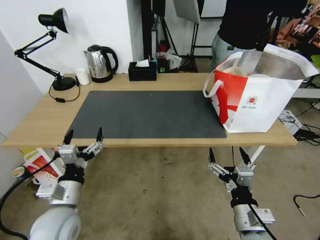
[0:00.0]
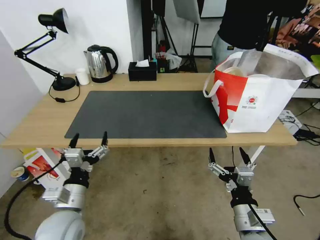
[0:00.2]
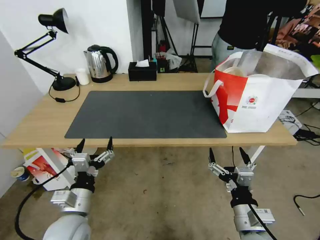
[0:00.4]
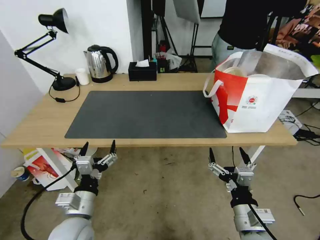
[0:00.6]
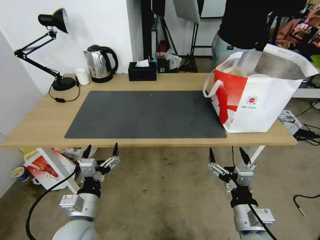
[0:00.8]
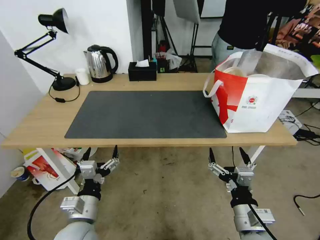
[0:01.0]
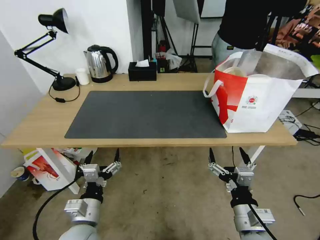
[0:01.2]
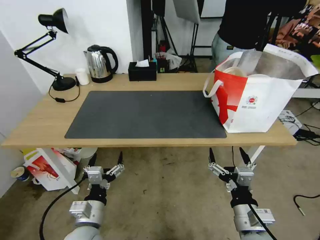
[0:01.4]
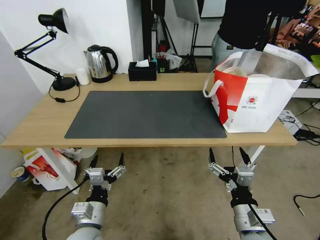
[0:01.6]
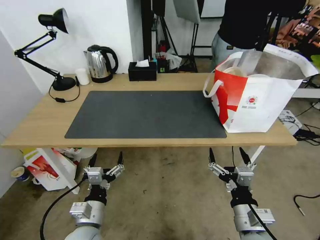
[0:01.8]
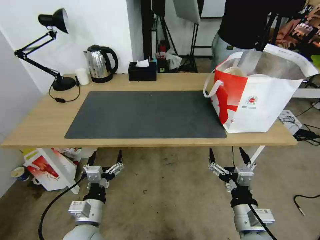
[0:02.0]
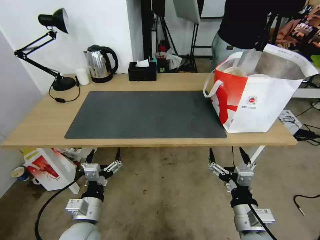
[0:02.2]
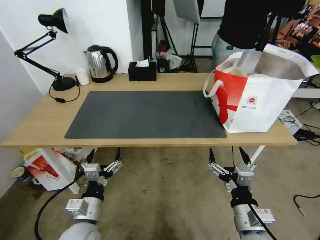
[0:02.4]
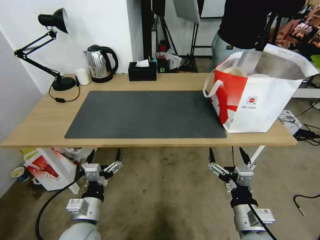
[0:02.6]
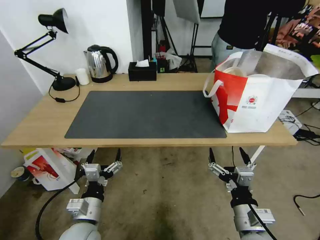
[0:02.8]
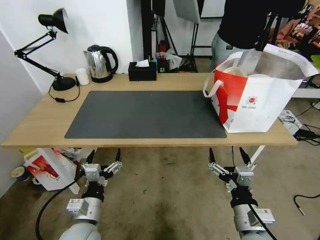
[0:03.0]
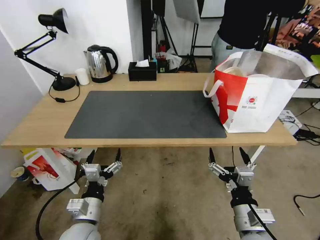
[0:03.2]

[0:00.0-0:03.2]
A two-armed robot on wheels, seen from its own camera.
Task of the whole recording: Pick up the trash from the table and place it into the takeout bag.
0:00.0 to 0:01.6: The left gripper shifts some 10 cm downward and to the right.
0:01.6 to 0:03.2: There are only small adjustments of the grippers.

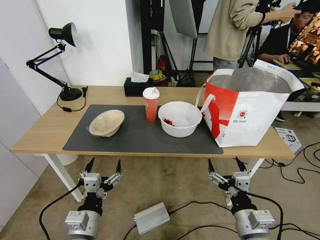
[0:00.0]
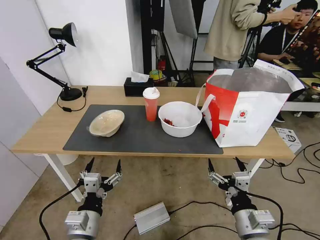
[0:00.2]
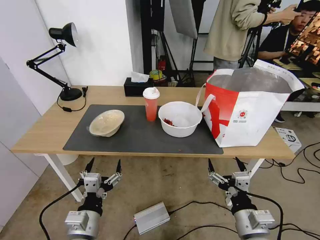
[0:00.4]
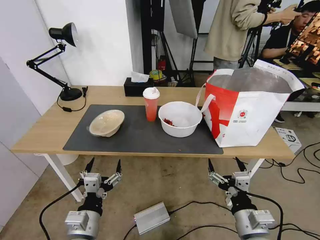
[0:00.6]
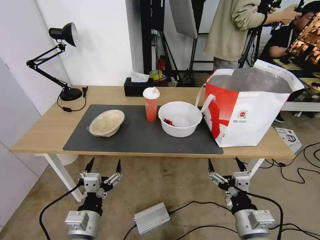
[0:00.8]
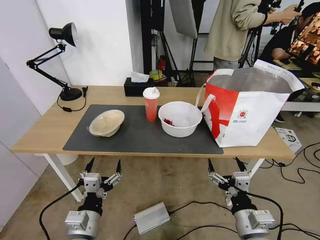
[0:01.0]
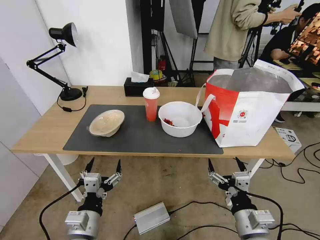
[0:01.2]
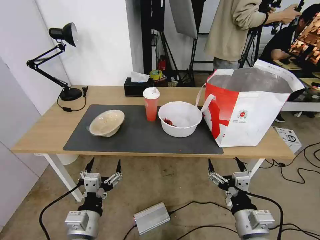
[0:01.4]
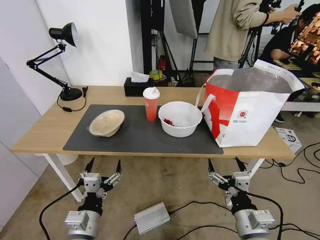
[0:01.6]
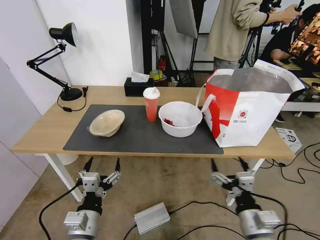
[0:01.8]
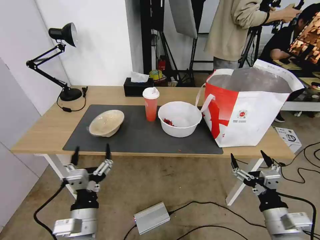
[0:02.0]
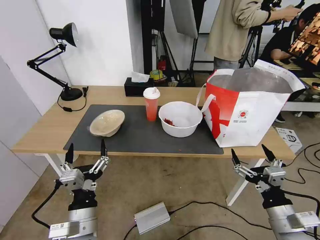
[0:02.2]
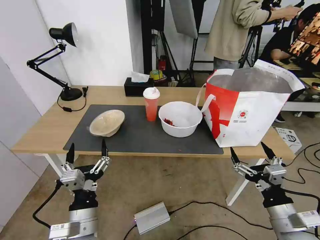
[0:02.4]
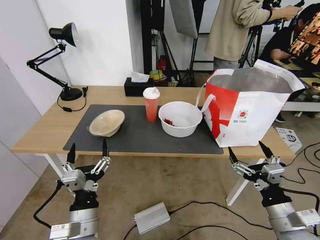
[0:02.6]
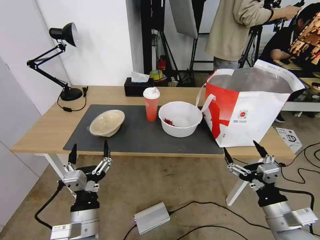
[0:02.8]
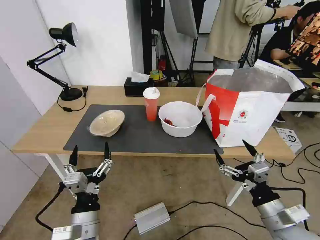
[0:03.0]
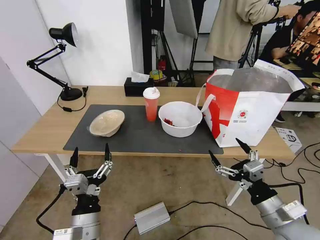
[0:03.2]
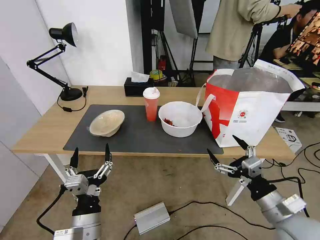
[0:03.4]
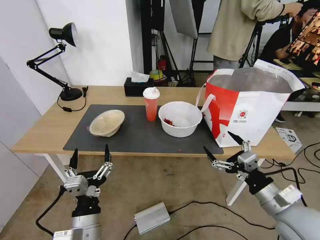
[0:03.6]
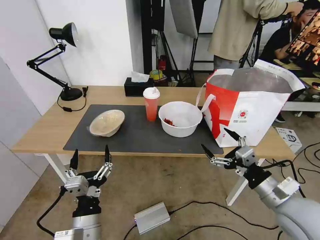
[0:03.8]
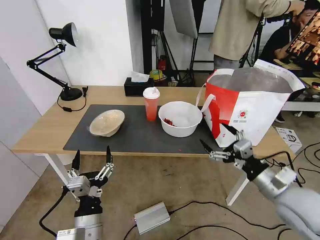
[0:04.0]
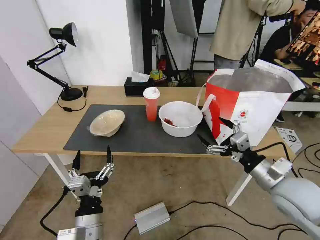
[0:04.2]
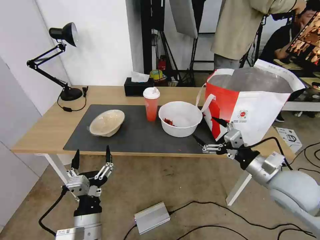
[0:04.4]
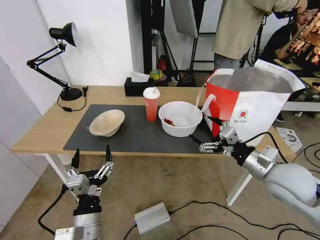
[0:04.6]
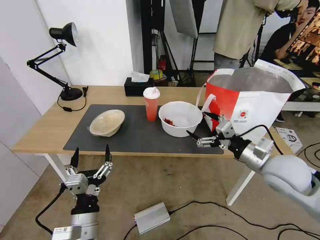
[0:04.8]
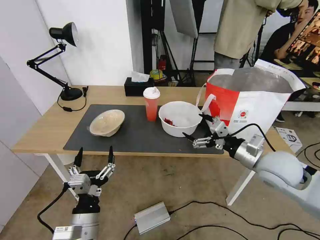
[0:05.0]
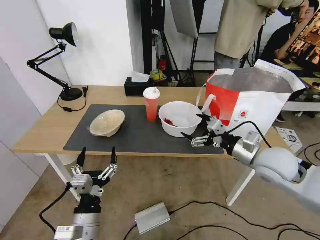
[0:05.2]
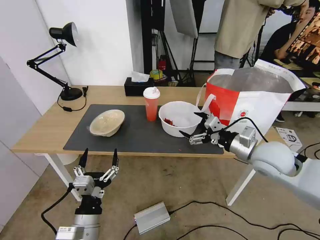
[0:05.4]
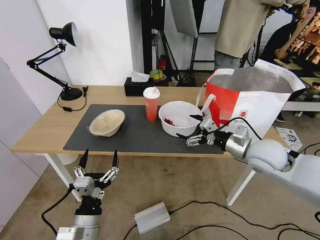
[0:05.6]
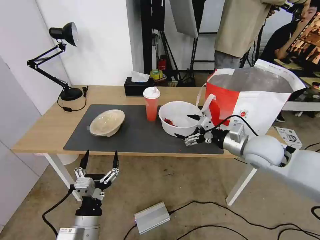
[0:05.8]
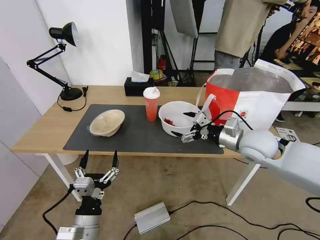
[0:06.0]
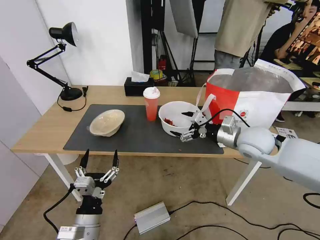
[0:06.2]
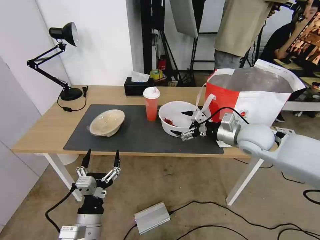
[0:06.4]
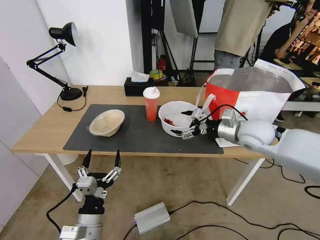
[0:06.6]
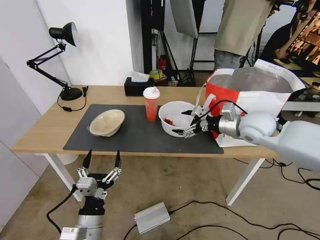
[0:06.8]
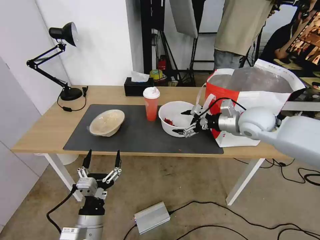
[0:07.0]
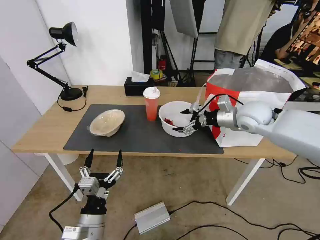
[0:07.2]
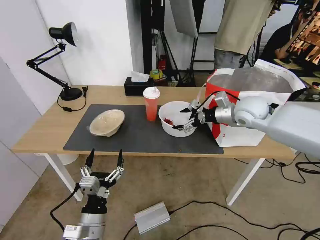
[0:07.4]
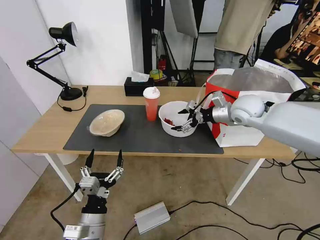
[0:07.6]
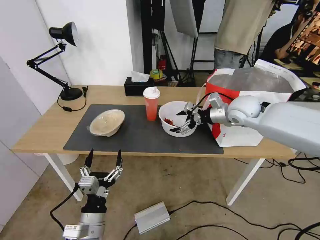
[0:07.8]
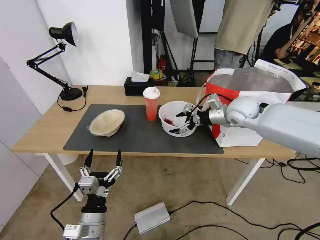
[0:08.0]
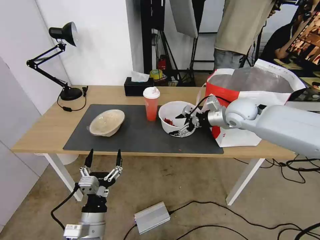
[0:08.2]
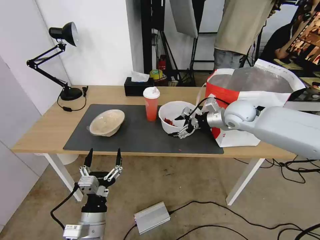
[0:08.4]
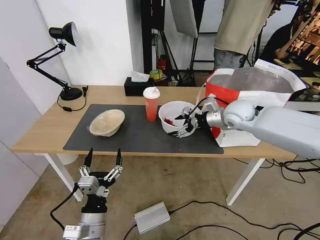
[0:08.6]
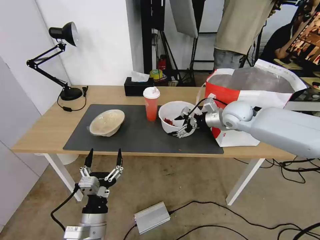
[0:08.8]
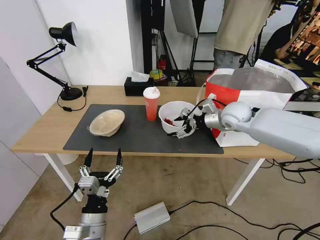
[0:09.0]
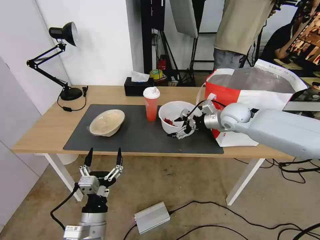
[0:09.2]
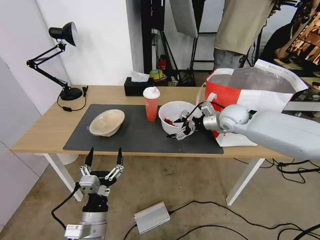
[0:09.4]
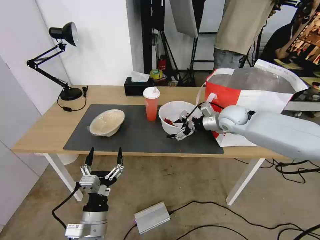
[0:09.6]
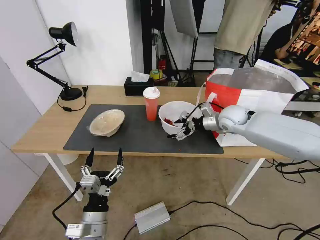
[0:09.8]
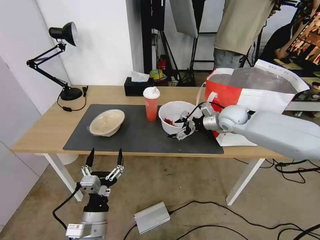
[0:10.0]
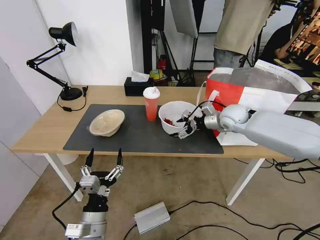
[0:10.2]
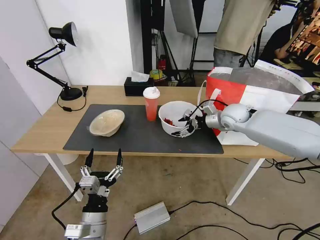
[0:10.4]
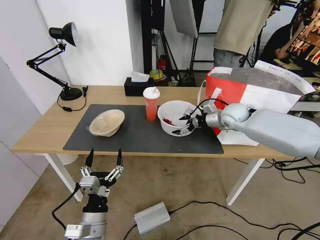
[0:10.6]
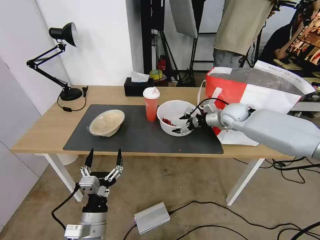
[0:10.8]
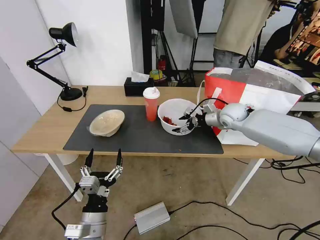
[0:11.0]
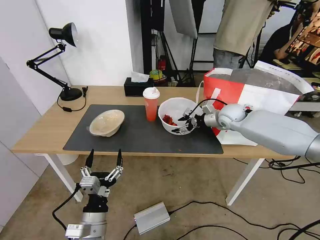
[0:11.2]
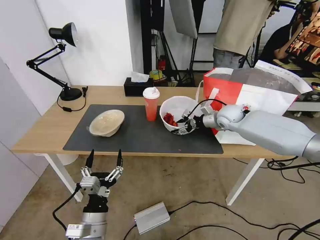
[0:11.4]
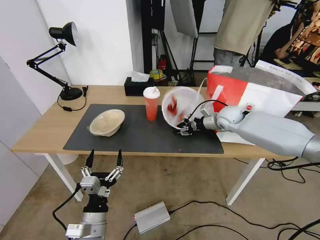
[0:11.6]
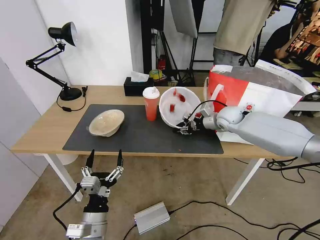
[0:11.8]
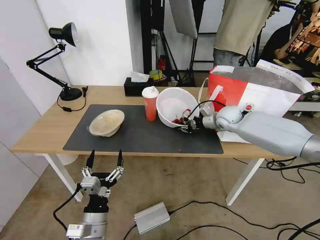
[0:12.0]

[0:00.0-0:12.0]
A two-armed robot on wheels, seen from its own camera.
Task of the whole recording: Pick up the trash from the table and place it into the takeout bag.
0:01.6 to 0:03.0: The right gripper shifts roughly 5 cm to the right.
0:03.0 to 0:04.4: The right gripper is displaced forward and upward by some 15 cm.
0:04.4 to 0:06.0: The right gripper travels forward by roughly 10 cm.
0:06.0 to 0:07.6: The right gripper travels forward by approximately 10 cm.
0:07.6 to 0:09.0: There are only small adjustments of the grippers.
0:09.0 to 0:10.4: There are only small adjustments of the grippers.
0:10.4 to 0:12.0: The right gripper closes its fingers.

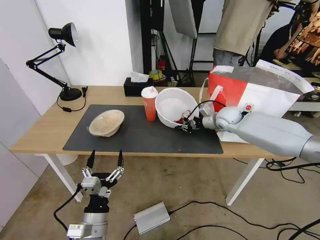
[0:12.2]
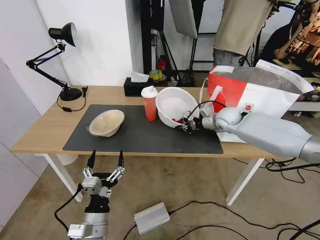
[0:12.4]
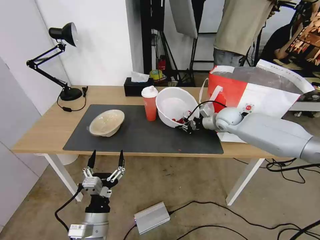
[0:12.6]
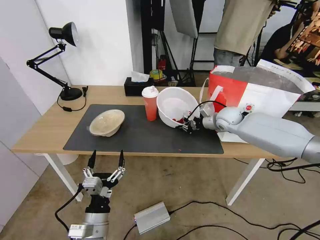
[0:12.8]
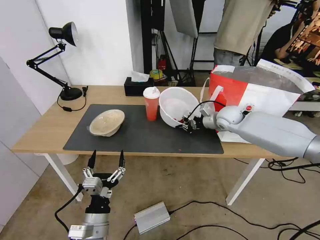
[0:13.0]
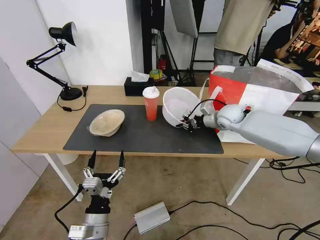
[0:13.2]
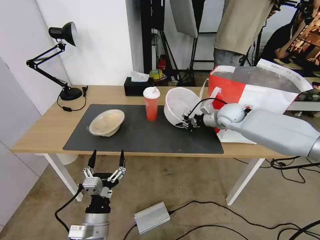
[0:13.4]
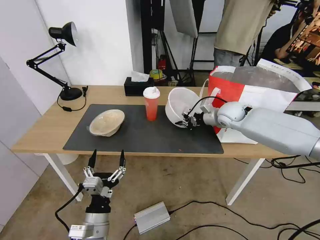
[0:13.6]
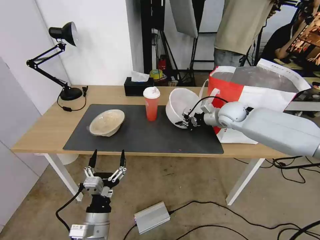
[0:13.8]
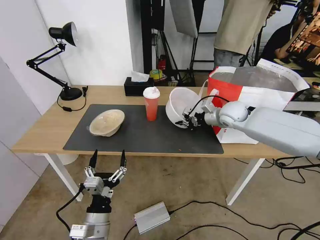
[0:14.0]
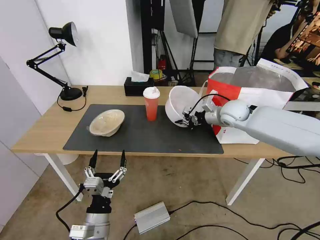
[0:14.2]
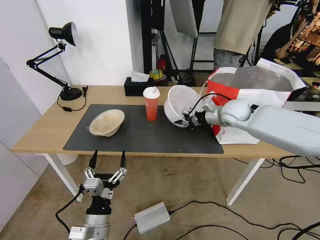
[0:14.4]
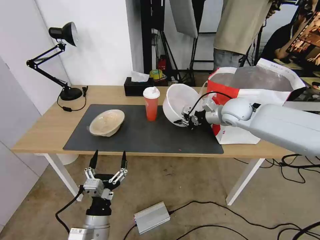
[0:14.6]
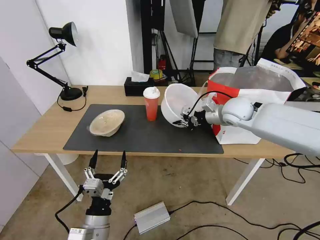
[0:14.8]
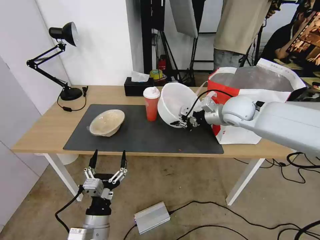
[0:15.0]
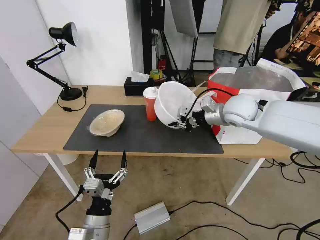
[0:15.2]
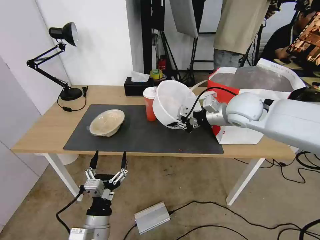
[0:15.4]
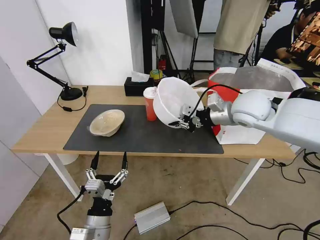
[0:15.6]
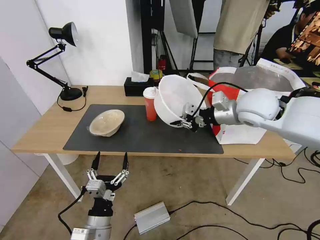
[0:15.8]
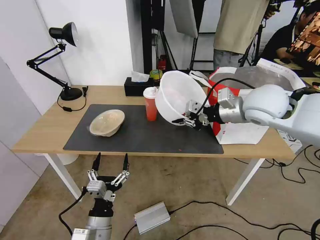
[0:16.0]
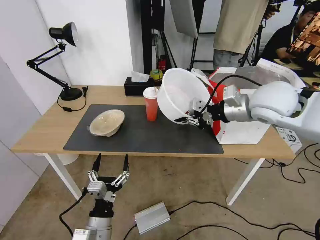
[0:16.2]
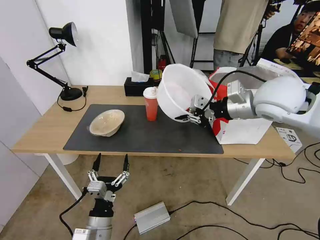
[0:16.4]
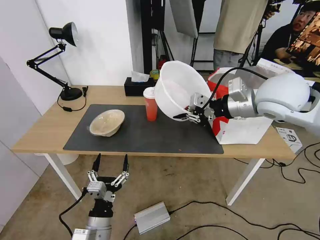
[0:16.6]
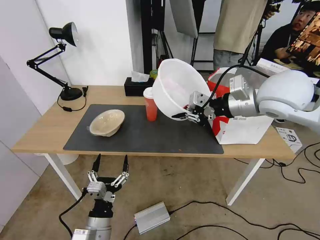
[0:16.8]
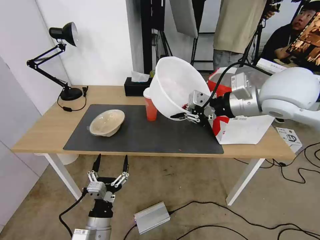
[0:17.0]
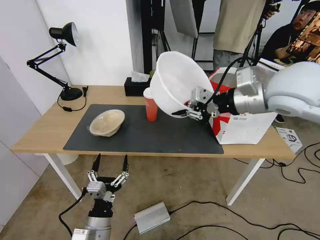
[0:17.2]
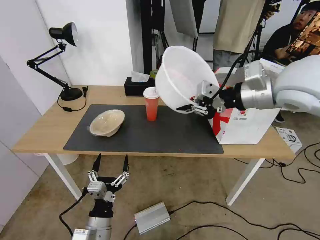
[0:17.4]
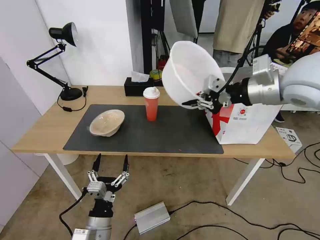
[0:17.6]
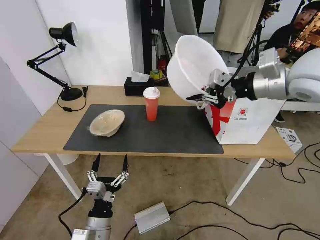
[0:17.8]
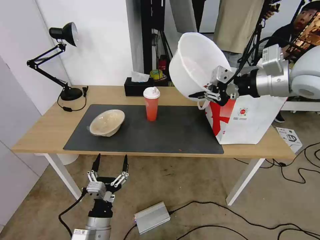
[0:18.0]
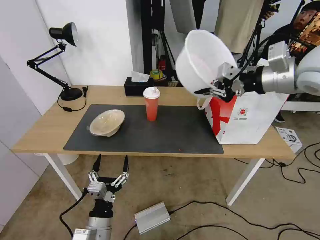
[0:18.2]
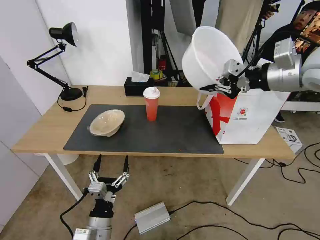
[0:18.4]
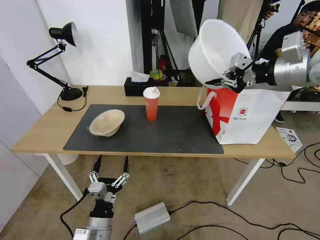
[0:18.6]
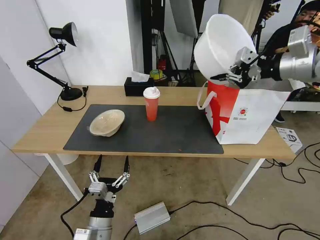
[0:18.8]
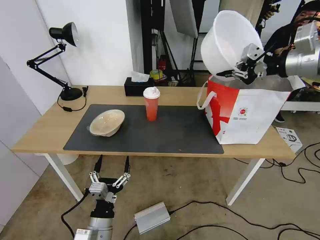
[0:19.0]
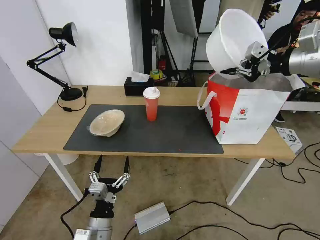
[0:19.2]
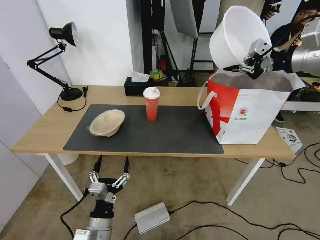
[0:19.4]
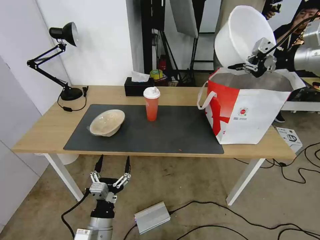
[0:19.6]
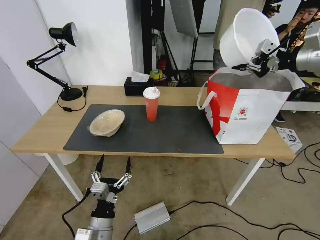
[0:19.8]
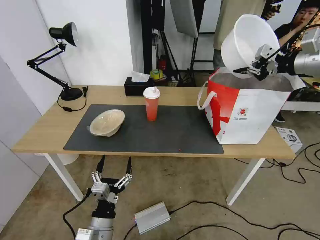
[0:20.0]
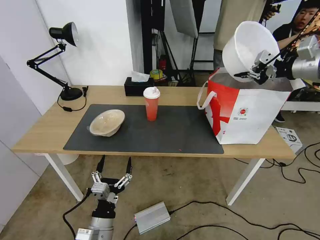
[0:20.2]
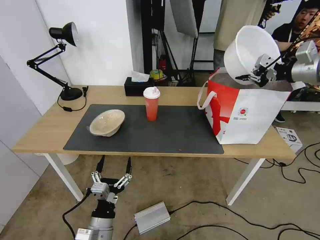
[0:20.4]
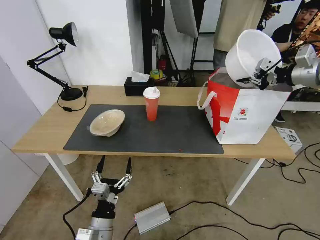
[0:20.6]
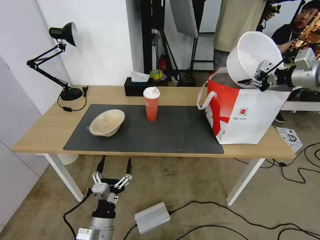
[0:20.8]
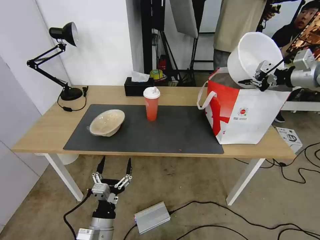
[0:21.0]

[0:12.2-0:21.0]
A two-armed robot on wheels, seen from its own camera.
Task of the whole recording: Pick up the trash from the table and place it into the takeout bag.
0:12.2 to 0:13.6: There are only small adjustments of the grippers.
0:13.6 to 0:15.2: The right gripper is displaced upward and backward by about 10 cm.
0:15.2 to 0:16.6: The right gripper goes approximately 15 cm upward and backward.
0:16.6 to 0:18.0: The right gripper is displaced upward by roughly 5 cm.
0:18.0 to 0:19.6: The right gripper travels to the right and forward by roughly 15 cm.
0:19.6 to 0:21.0: The right gripper shifts about 10 cm downward and to the right.
